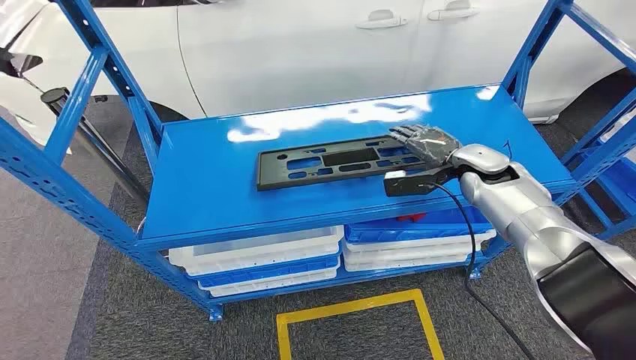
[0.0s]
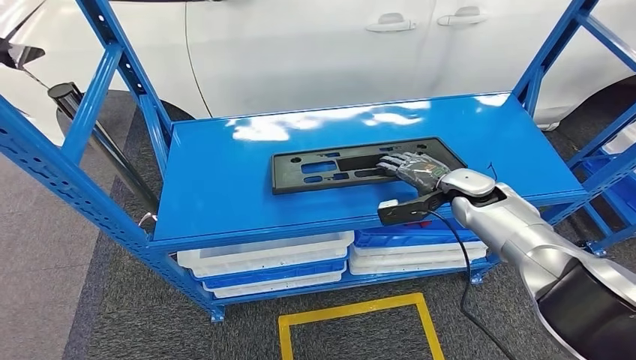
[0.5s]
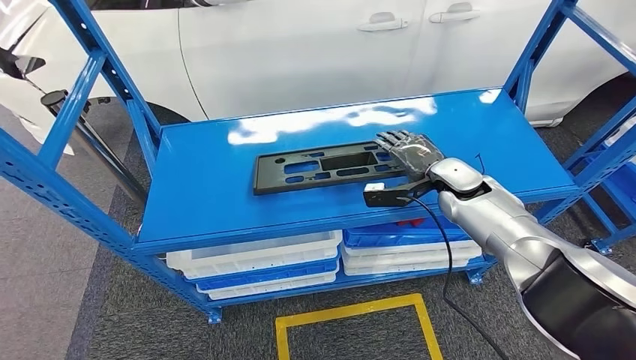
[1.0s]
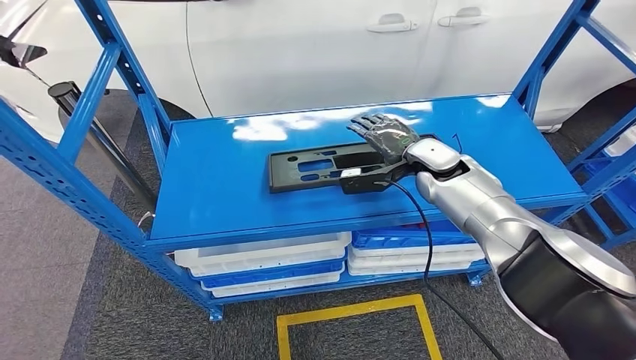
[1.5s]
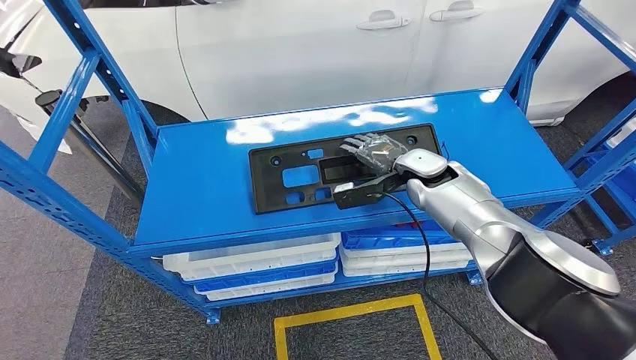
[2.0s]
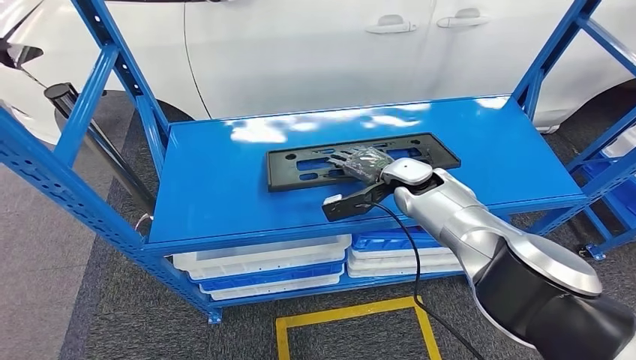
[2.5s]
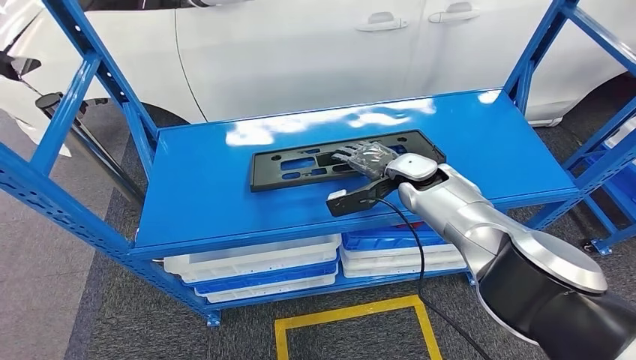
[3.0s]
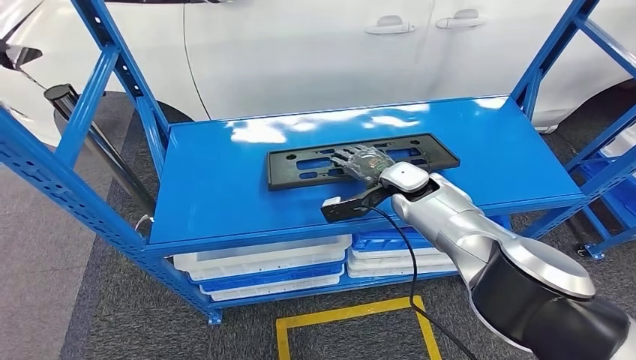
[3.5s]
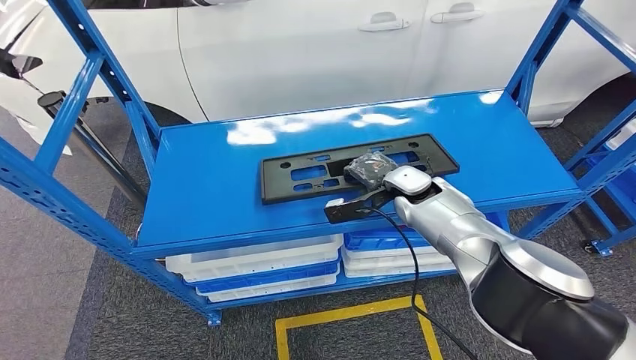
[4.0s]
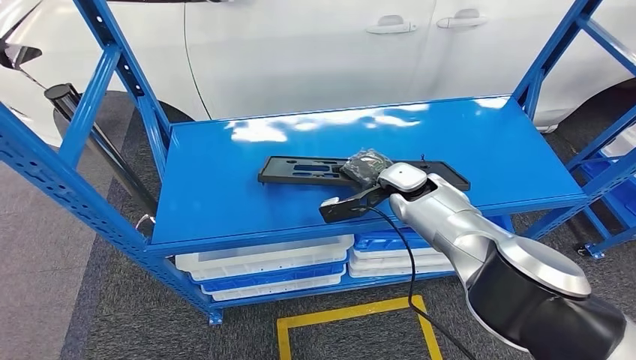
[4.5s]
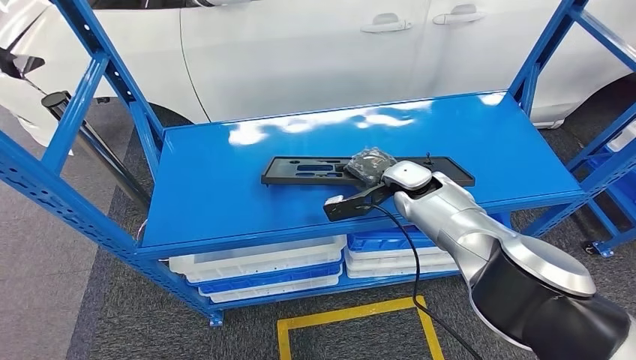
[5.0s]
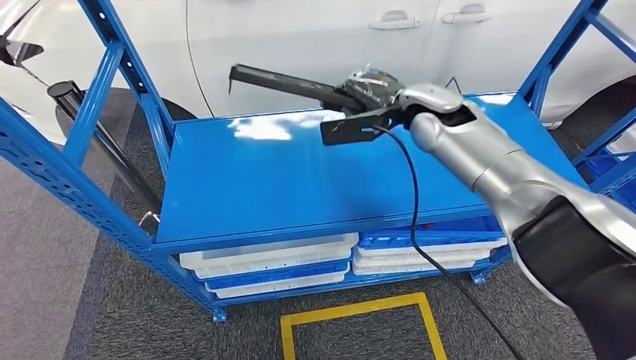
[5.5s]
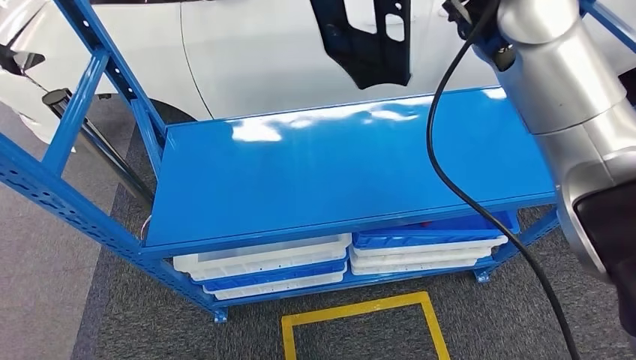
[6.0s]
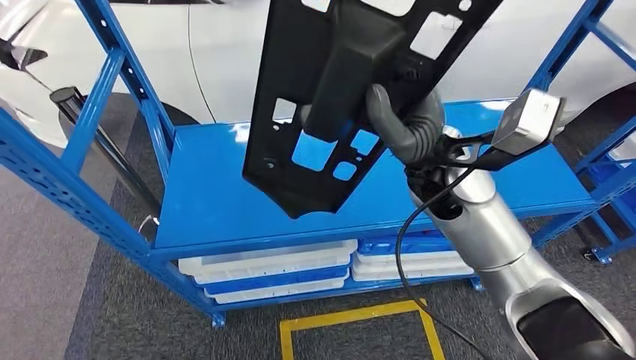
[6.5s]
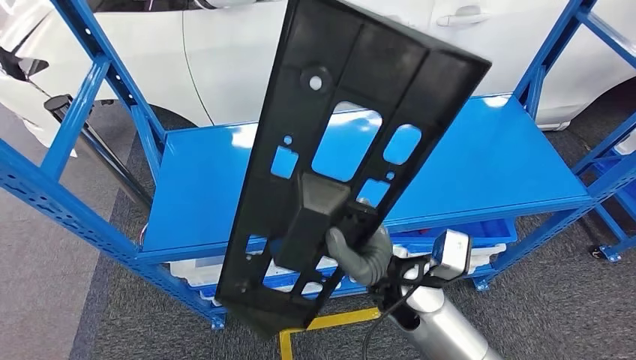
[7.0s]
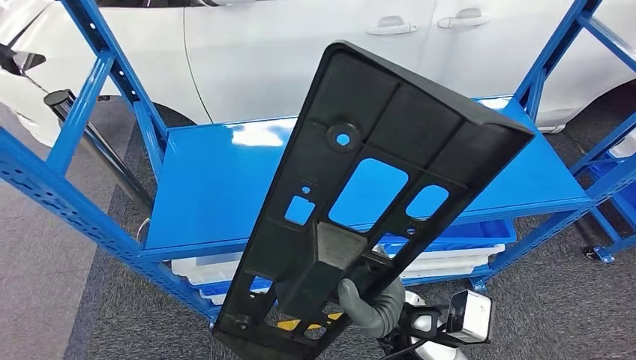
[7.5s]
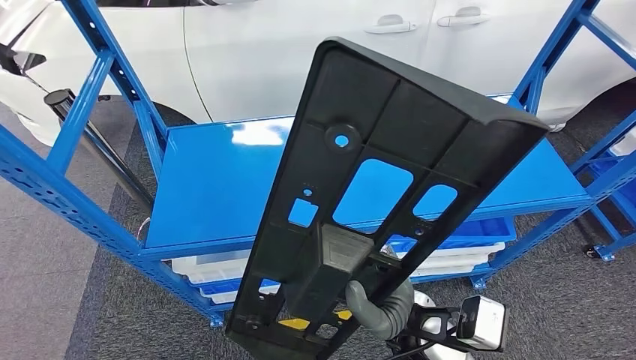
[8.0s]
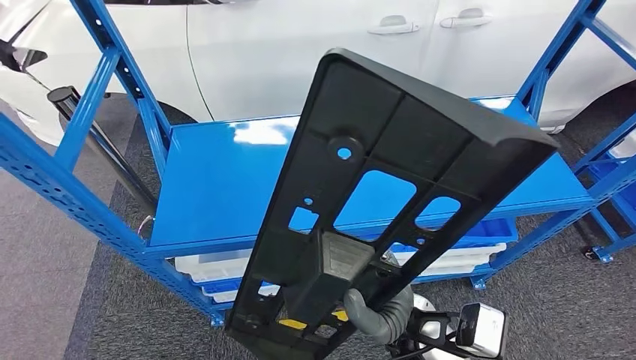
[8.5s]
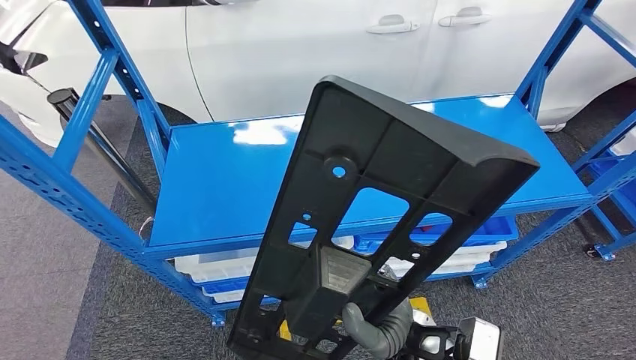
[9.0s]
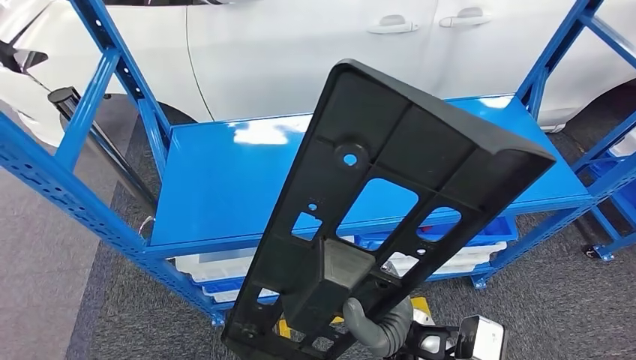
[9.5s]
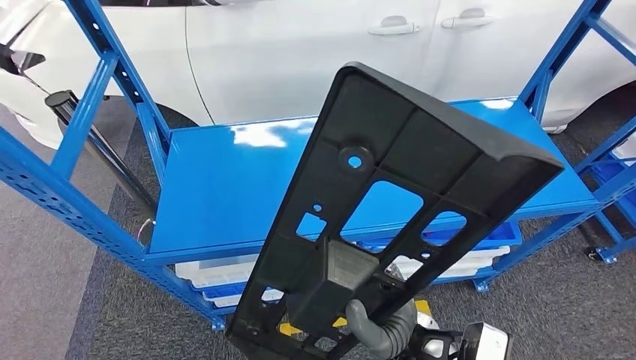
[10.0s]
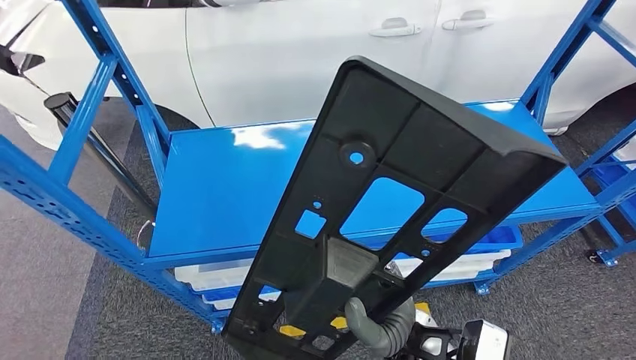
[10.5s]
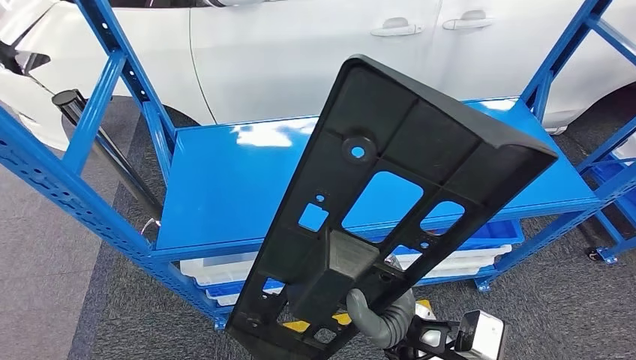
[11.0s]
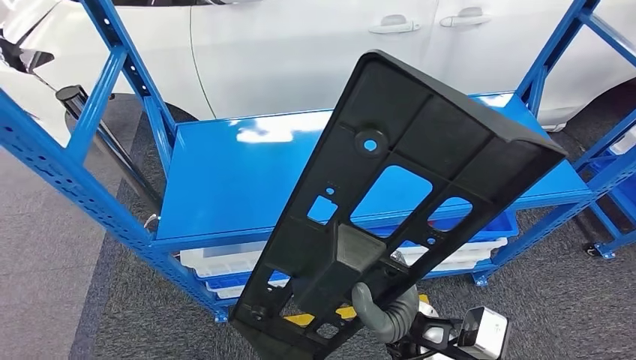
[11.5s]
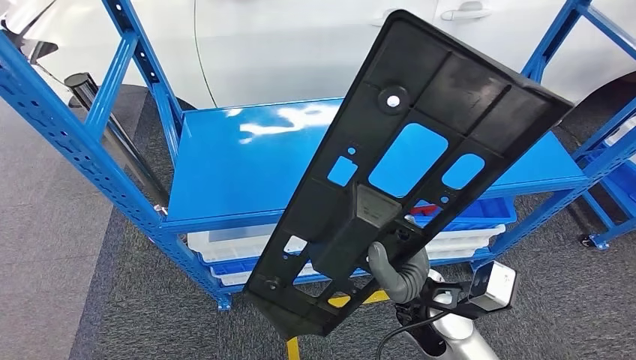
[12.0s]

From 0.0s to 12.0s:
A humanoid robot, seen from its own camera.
Step, from 0.0s to 6.5s: Pick up the large material from the shelf.
From 2.0s to 4.0s: The hands move only a little.

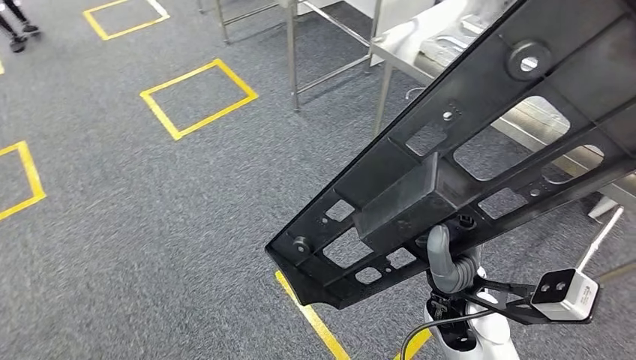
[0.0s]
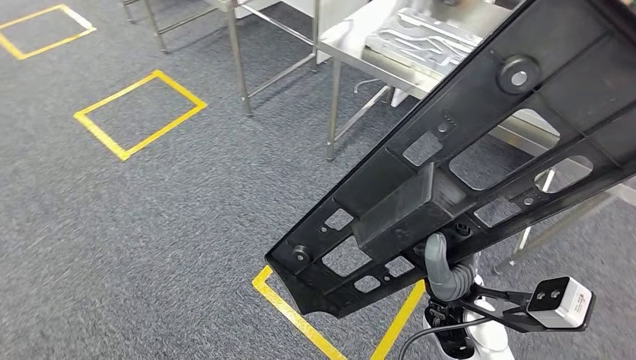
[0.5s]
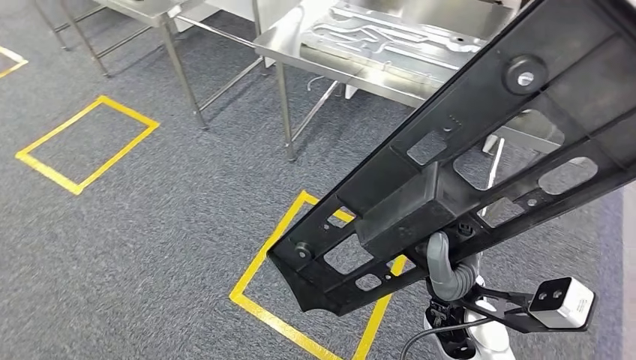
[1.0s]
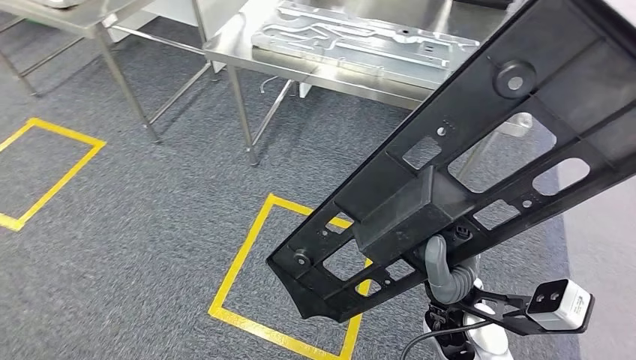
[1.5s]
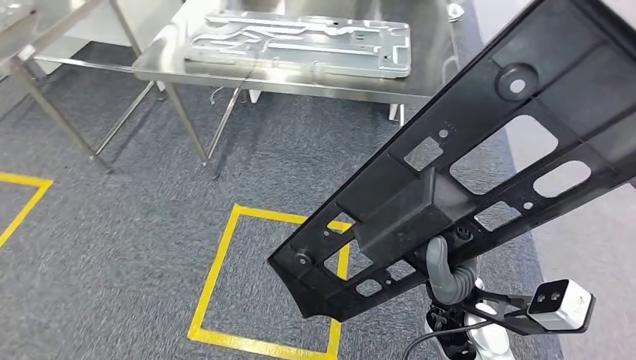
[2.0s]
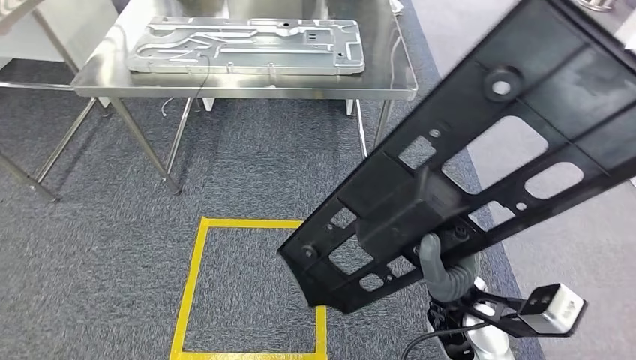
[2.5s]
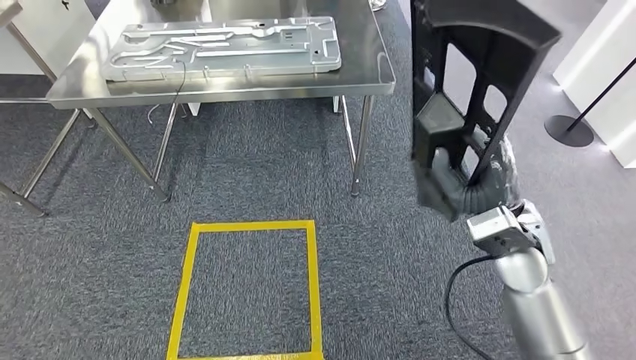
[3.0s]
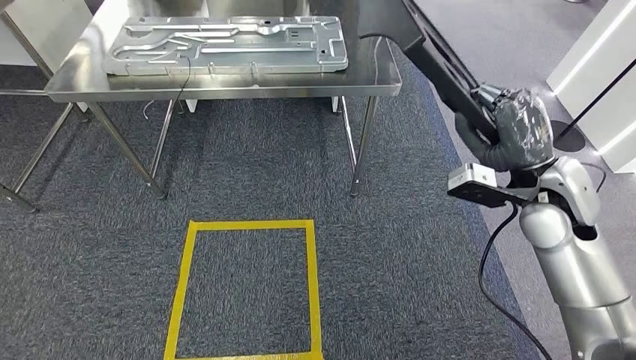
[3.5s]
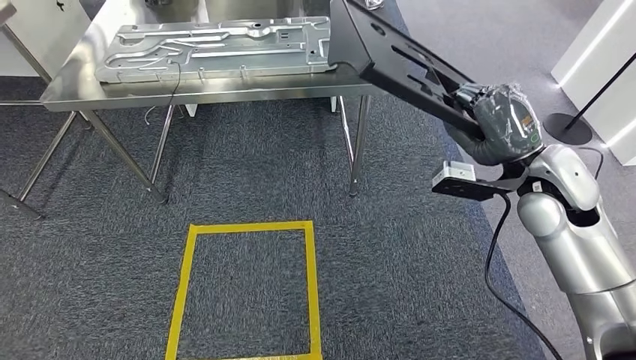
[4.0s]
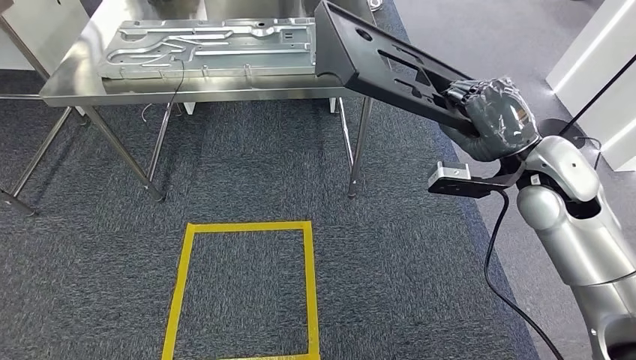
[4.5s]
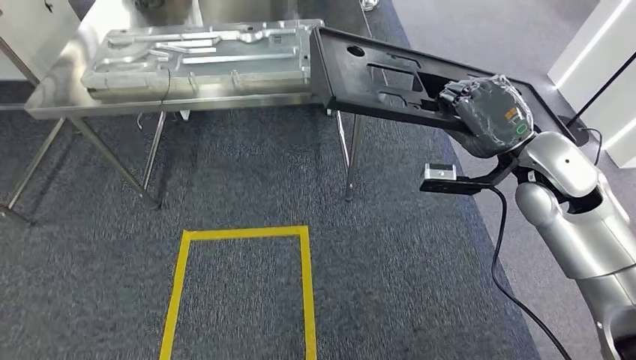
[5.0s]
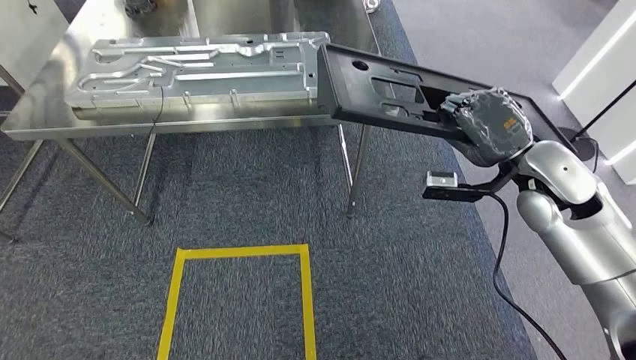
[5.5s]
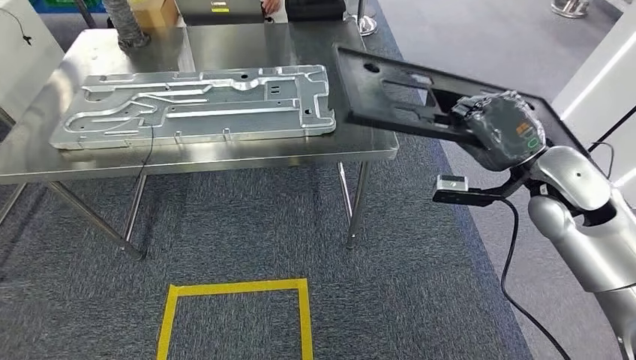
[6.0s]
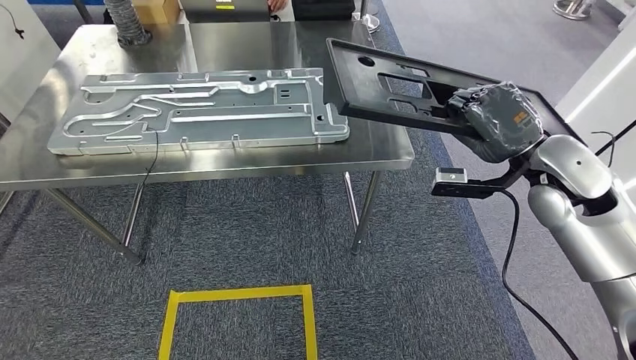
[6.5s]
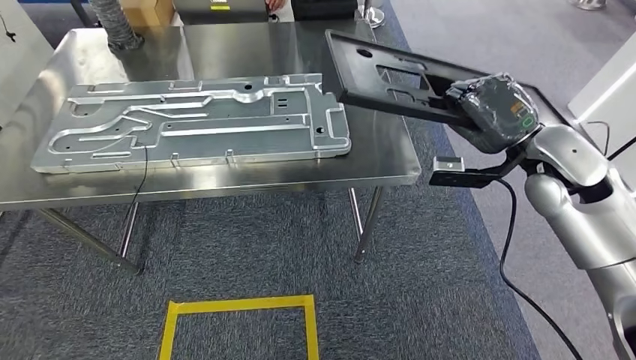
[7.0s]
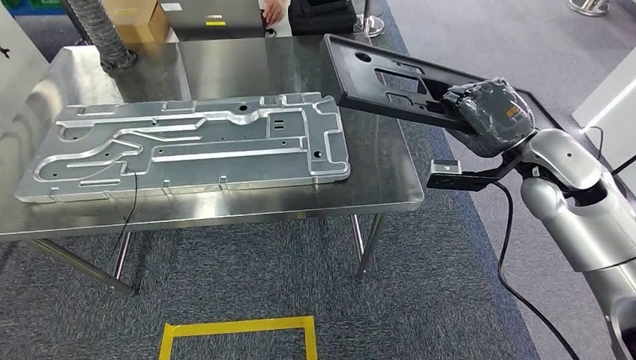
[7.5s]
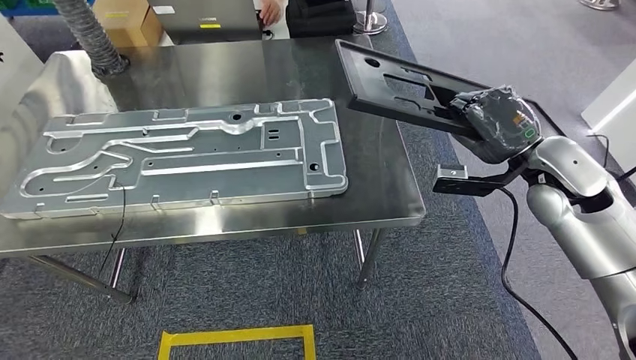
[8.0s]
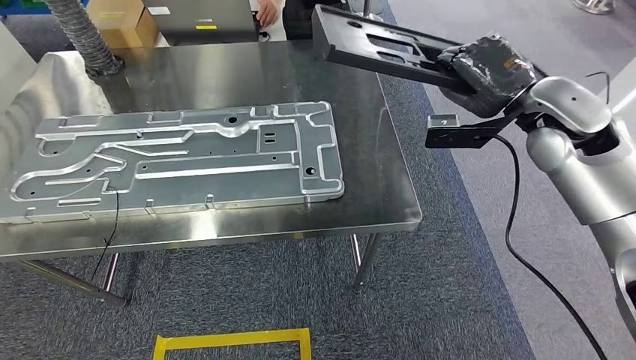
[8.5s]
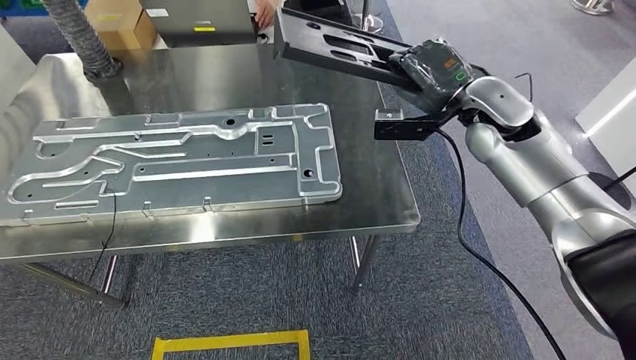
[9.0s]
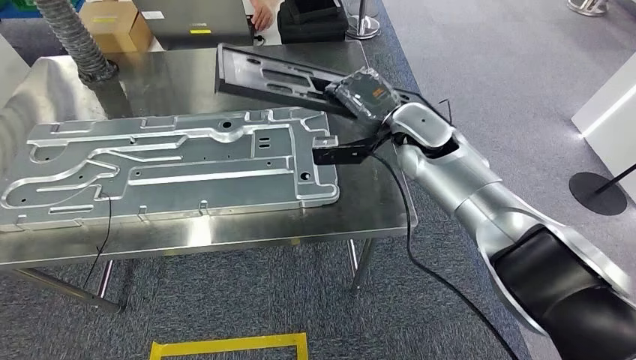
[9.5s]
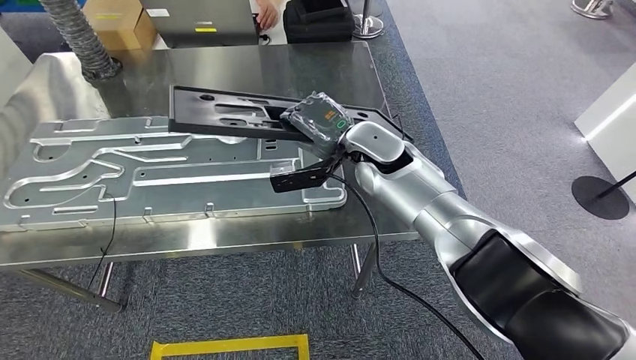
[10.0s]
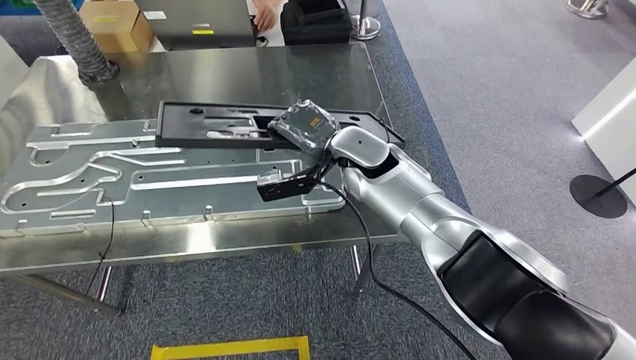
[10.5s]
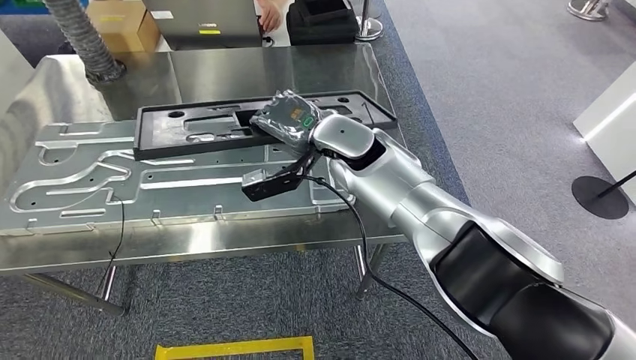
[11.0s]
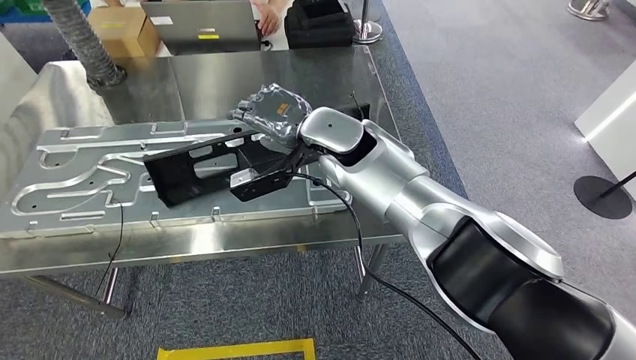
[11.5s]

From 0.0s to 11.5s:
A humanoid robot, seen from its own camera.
Step, from 0.0s to 7.5s: Move the large material to the workbench.
